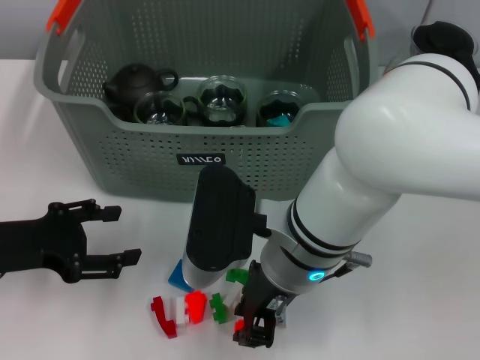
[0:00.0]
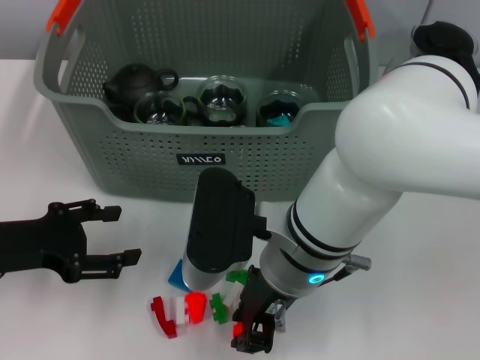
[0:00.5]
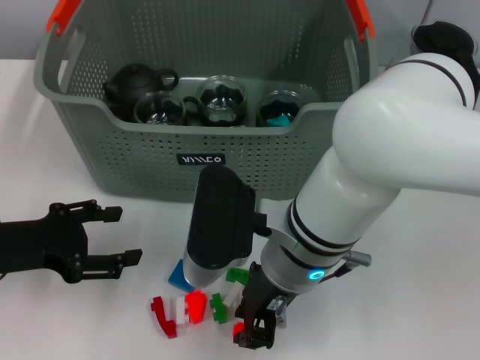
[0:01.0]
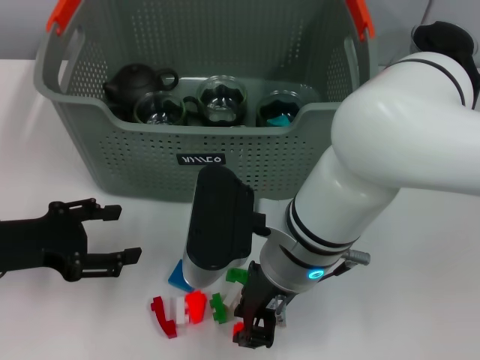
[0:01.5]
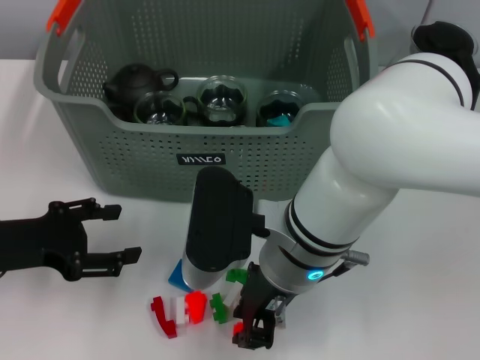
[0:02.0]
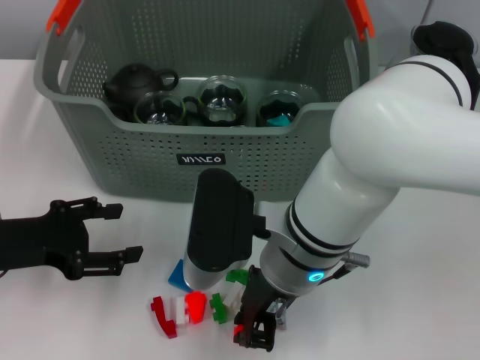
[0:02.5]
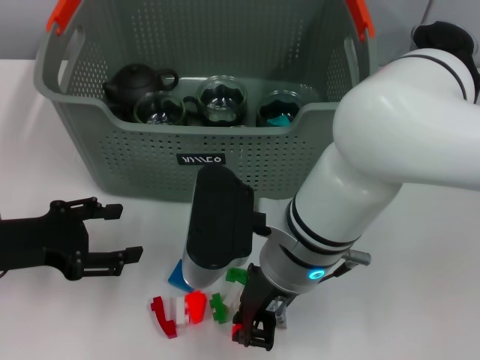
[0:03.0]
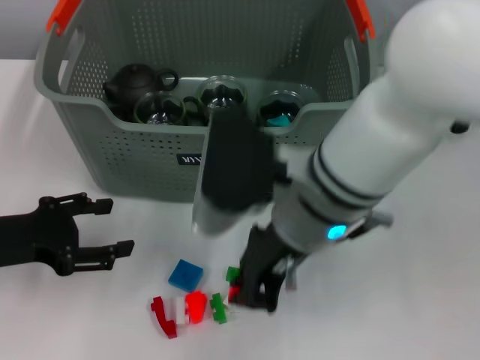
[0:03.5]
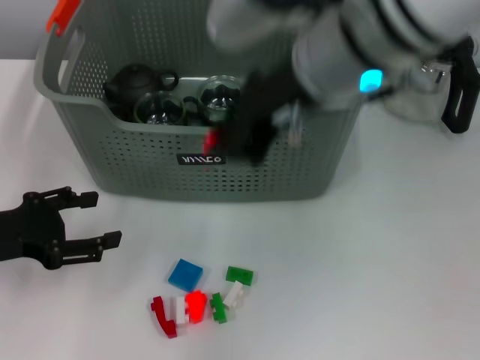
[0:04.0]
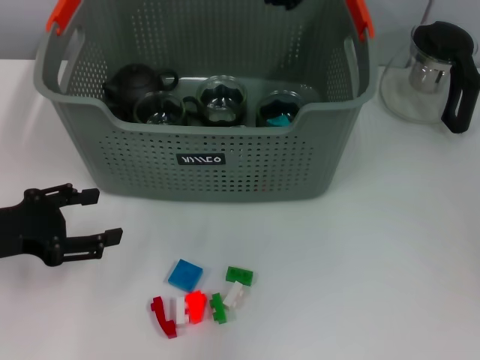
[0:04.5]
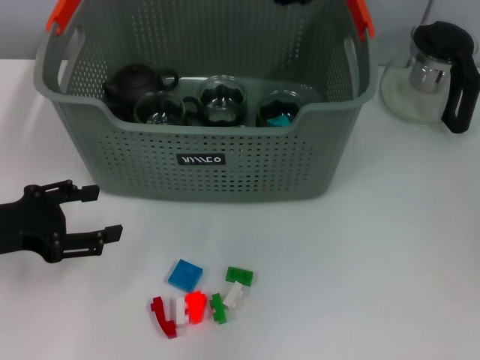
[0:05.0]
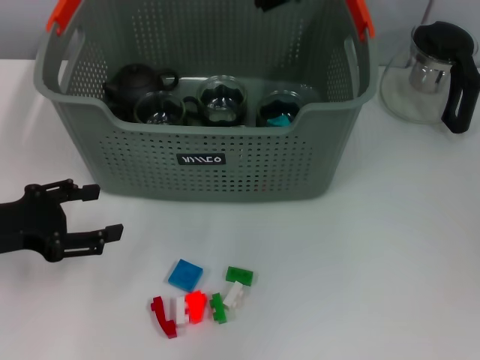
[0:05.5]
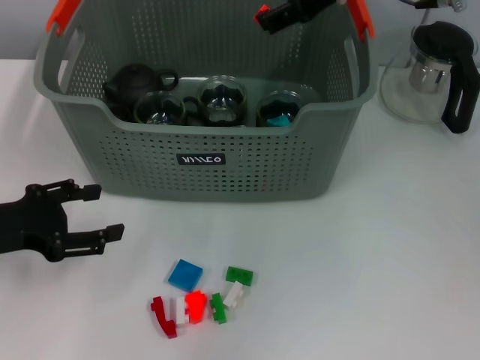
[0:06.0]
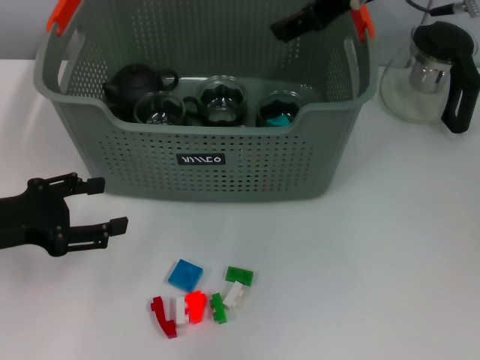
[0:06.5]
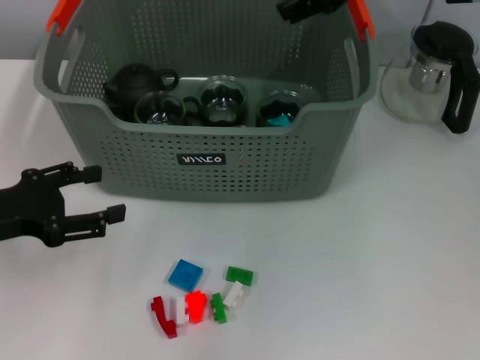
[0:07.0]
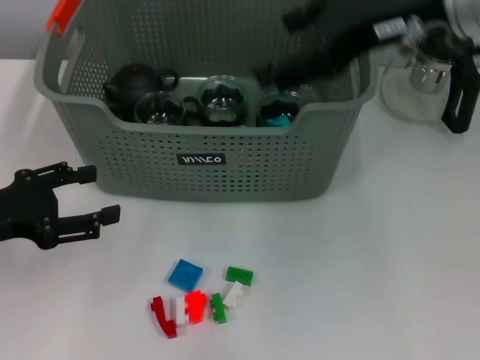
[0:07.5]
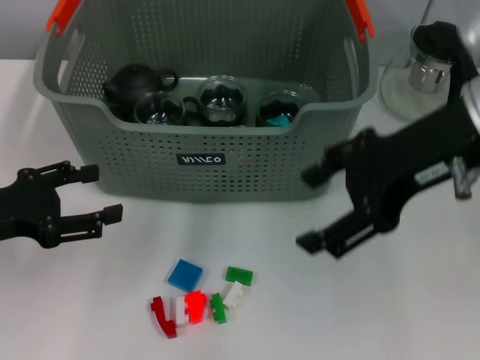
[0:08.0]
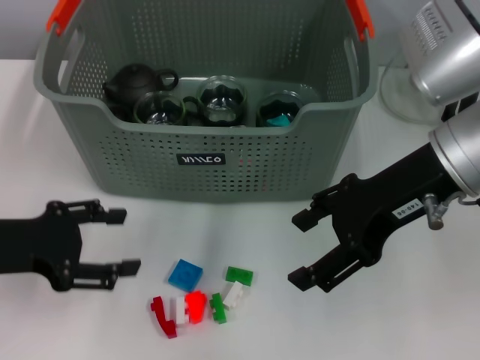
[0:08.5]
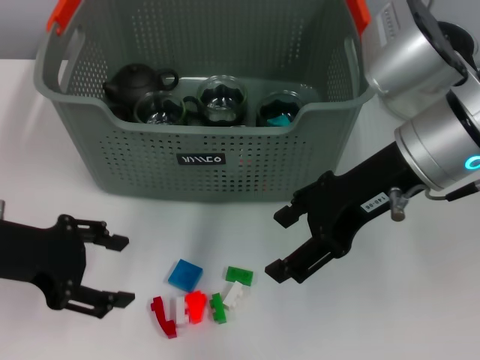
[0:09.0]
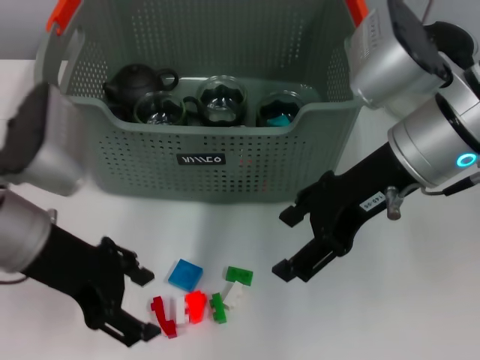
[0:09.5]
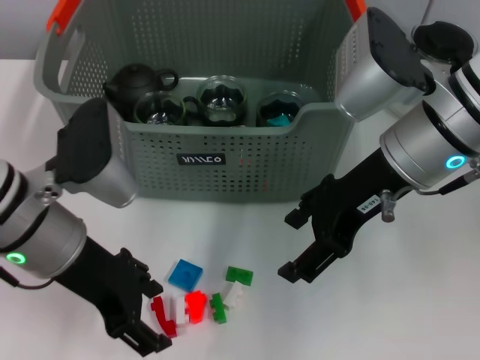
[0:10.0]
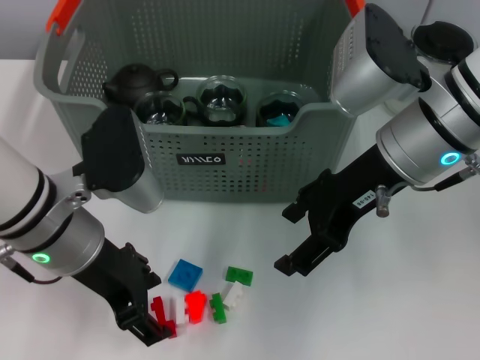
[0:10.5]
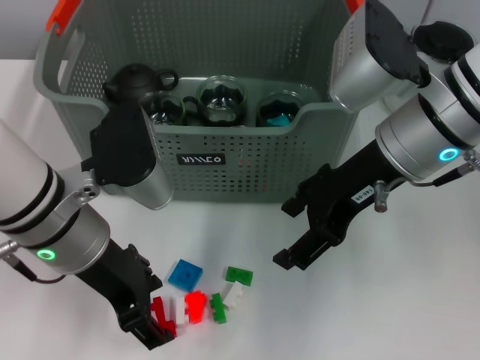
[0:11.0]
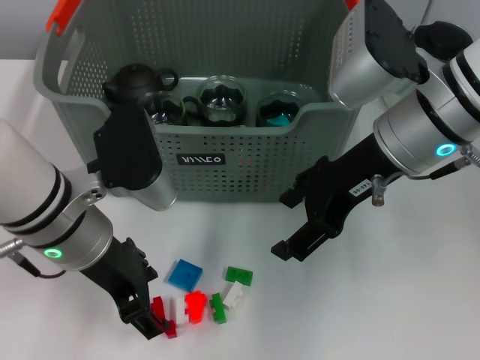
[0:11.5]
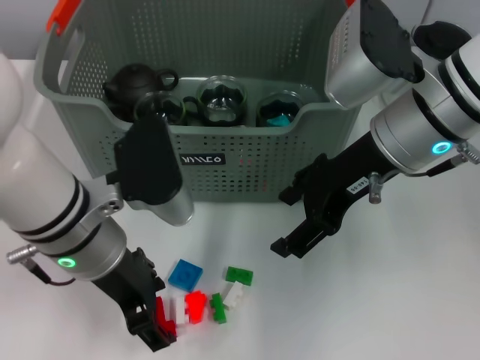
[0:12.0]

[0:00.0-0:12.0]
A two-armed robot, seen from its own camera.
Task of the whole recording: pick up the teacup on the table and place it into the storage bin, pick up the block on the table and place it into the storage bin.
Step, 0:00.0 to 0:02.5: Grasp the orange block with right gripper.
Step, 0:03.0 to 0:06.0: Place the orange block in the storage box with right gripper.
0:00.0 to 0:02.0: The two grippers keep their place.
0:02.0 to 0:04.0: The right gripper travels upward by approximately 15 cm.
0:04.0 to 0:06.0: The right gripper heads forward and to the right, covering some 10 cm, and opens.
0:06.0 to 0:08.0: The right gripper moves backward, some 10 cm.
0:08.0 to 0:10.0: The right gripper is displaced downward by some 5 cm, while the left gripper travels to the right by approximately 15 cm.

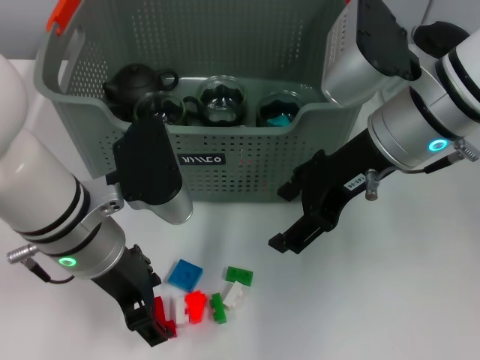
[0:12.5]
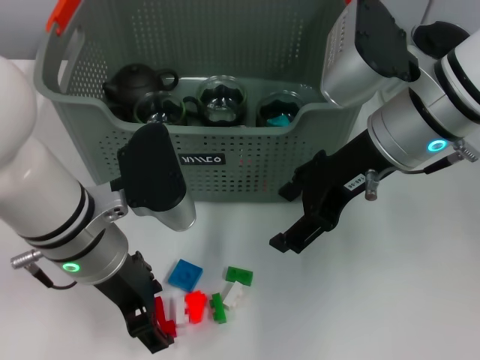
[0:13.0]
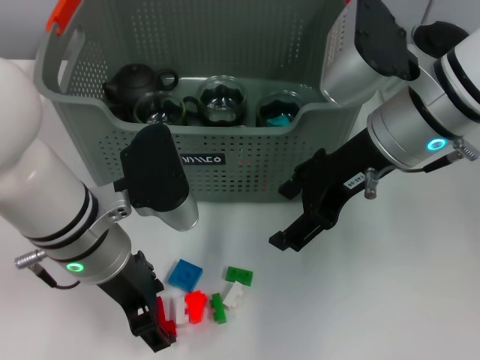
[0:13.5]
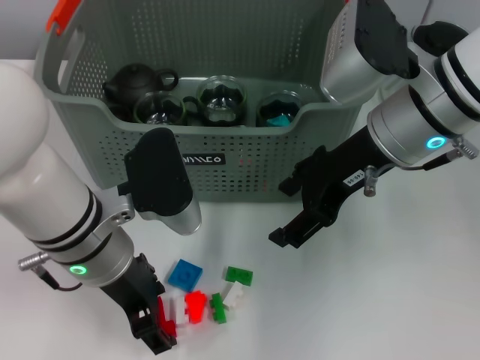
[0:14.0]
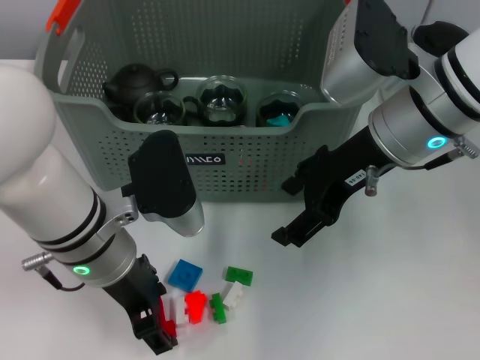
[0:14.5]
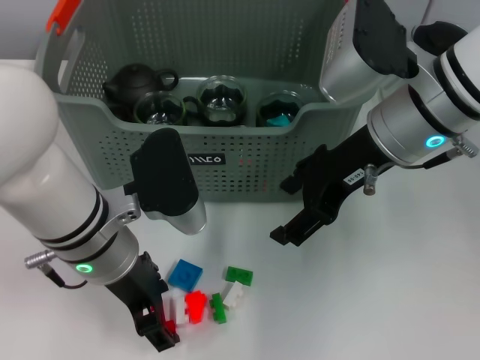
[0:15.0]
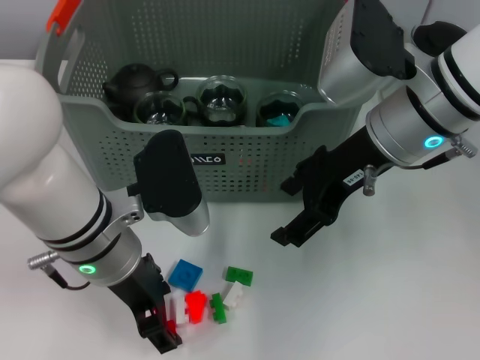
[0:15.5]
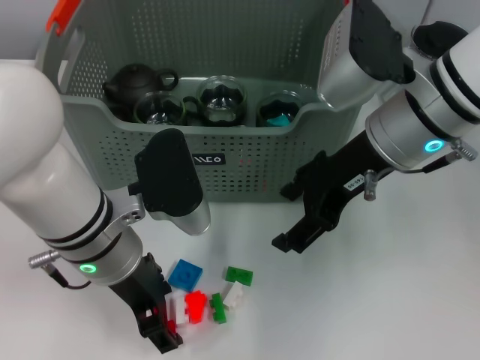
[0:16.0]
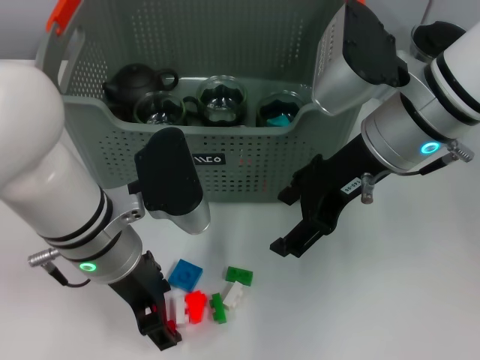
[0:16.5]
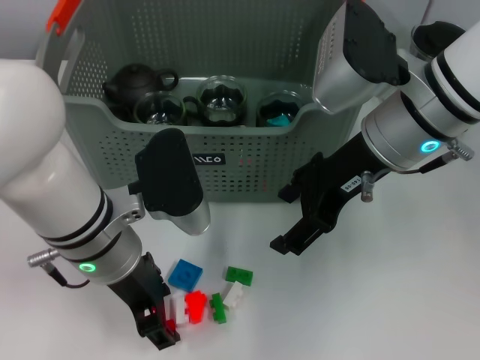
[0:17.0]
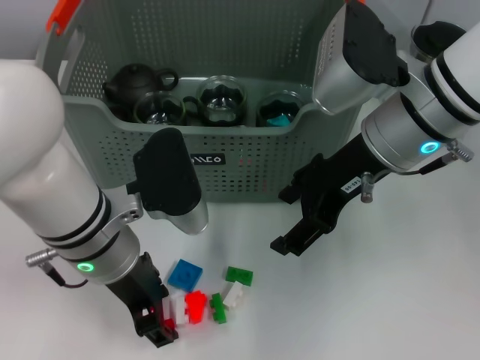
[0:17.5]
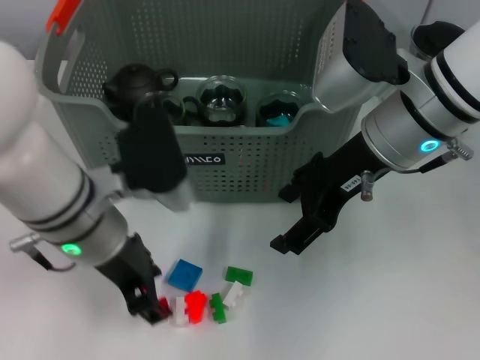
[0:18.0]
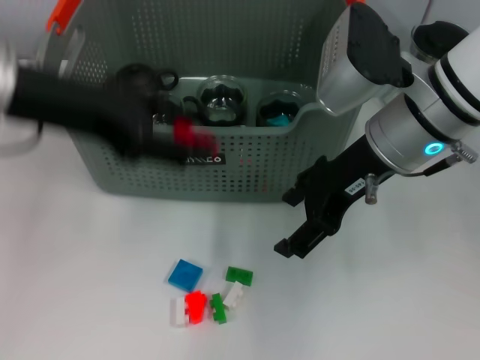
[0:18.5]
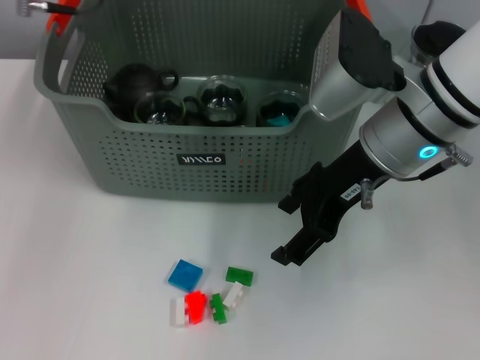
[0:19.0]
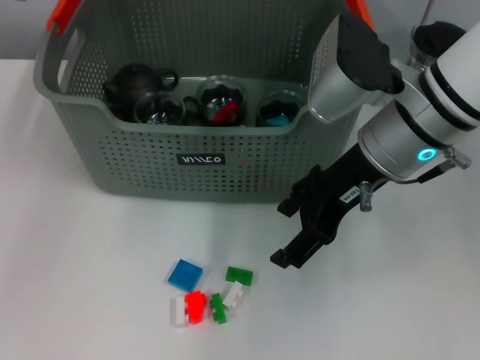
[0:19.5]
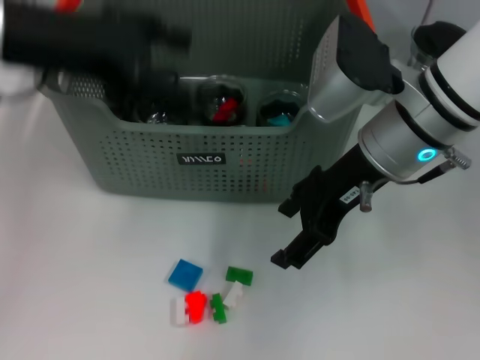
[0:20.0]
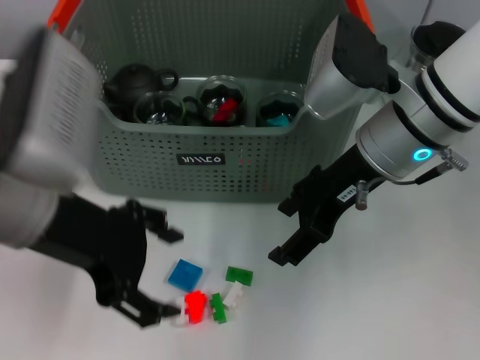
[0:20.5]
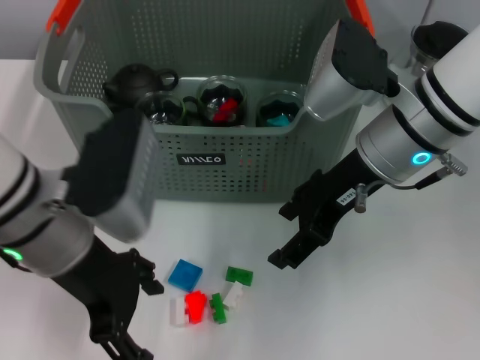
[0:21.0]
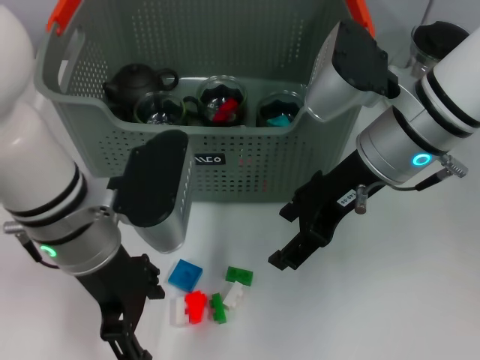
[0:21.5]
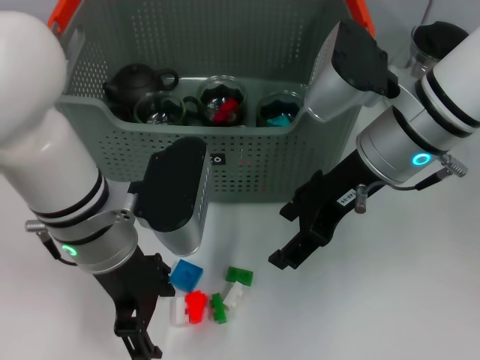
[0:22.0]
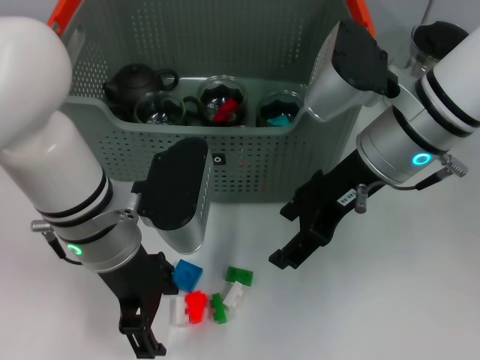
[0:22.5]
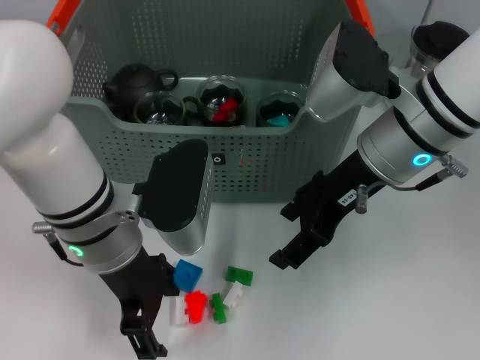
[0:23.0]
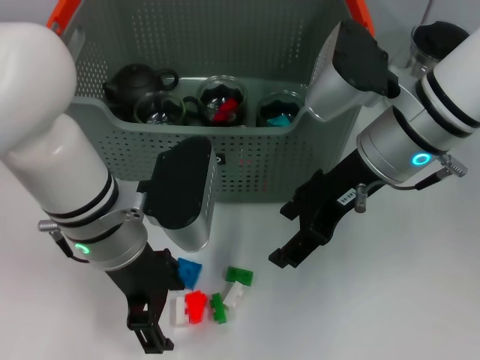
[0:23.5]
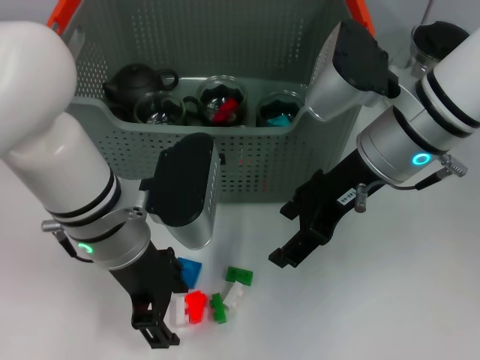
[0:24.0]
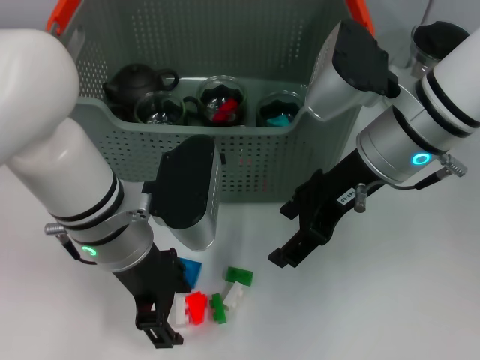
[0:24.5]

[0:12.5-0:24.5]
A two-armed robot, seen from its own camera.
Task of the whole recording: pick up the teacup on the table and place it into the storage bin, pick up the block on the table and place it into the storage bin.
Step, 0:12.5 to 0:17.5: Grasp the red block with left gripper.
Step, 0:18.0 to 0:19.0: Place the red block in the storage box with left gripper.
0:12.5 to 0:14.5: The grippers make only small movements.
0:14.5 to 0:16.5: Both grippers stay put.
0:16.5 to 0:18.5: The left gripper is displaced upward and to the left by approximately 15 cm.
0:18.5 to 0:20.5: The left gripper travels downward by roughly 5 cm, and moves about 15 cm forward and comes back.
0:20.5 to 0:22.5: The left gripper heads downward and to the right, covering roughly 10 cm.
0:22.5 to 0:24.5: Both grippers stay about where they are.

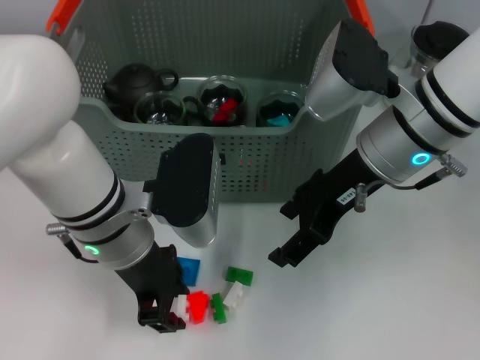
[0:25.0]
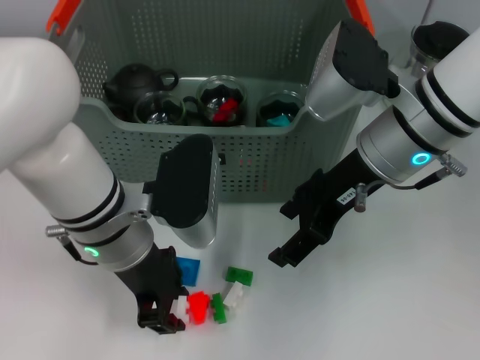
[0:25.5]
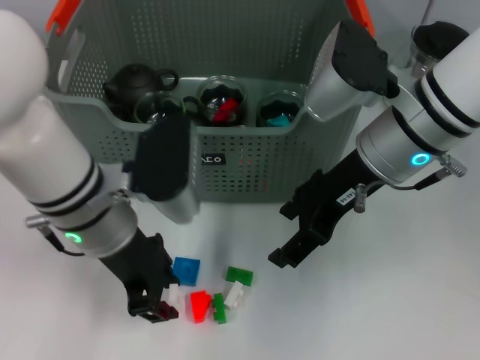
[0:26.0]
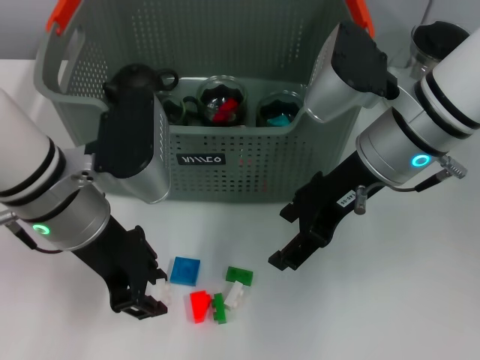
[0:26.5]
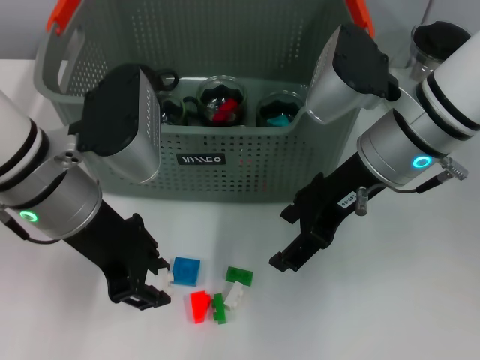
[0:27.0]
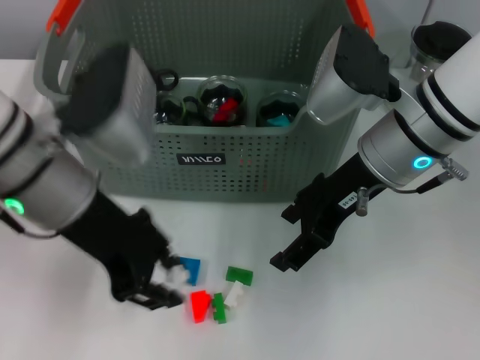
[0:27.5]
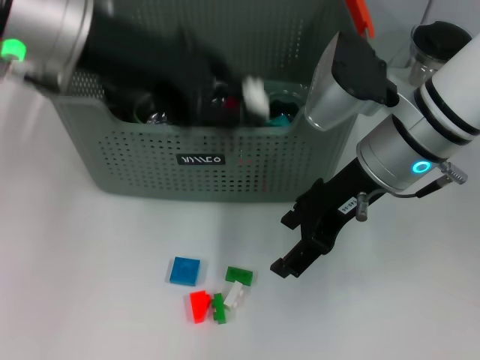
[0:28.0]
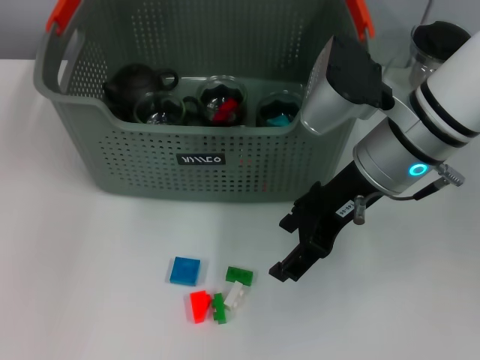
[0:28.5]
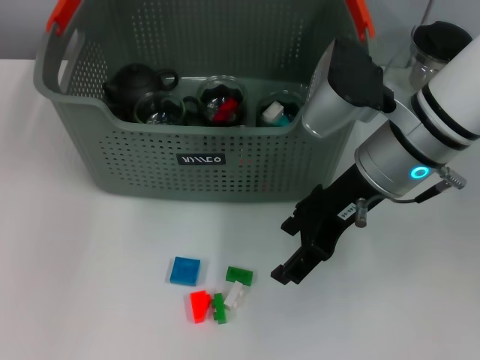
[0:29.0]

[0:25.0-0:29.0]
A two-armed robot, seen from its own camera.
Task of the whole recording: pick up the teacup on the table and place it into the storage bin, pick up the block on the table and place it into the storage bin.
0:25.0 to 0:27.0: The left gripper moves upward, roughly 5 cm.
0:27.0 to 0:29.0: The left gripper heads forward and upward, covering roughly 20 cm.
